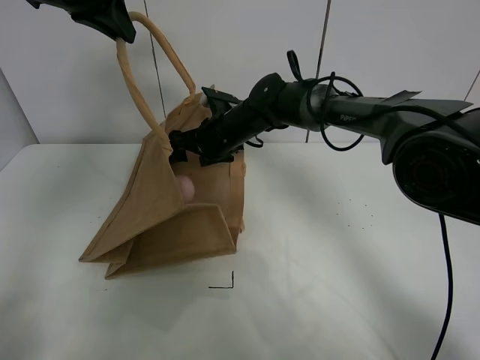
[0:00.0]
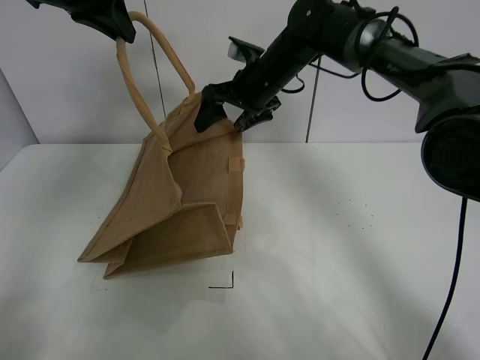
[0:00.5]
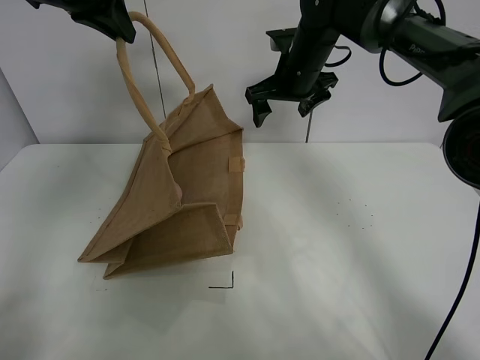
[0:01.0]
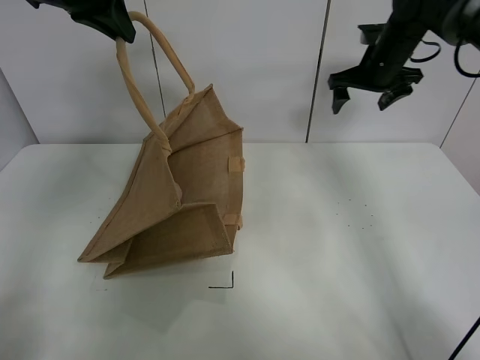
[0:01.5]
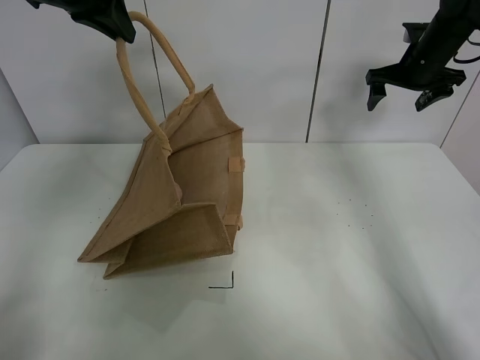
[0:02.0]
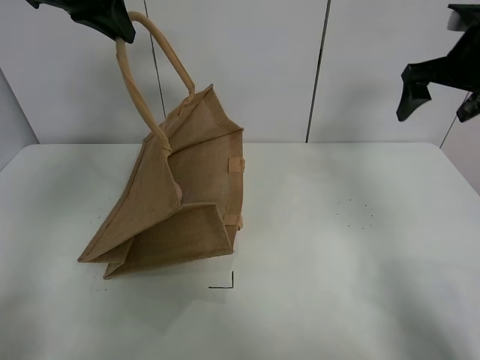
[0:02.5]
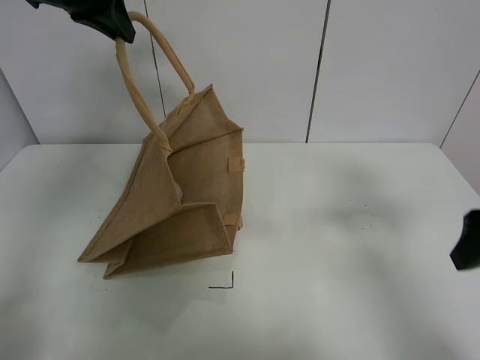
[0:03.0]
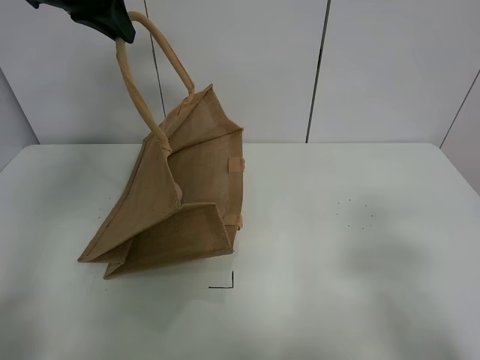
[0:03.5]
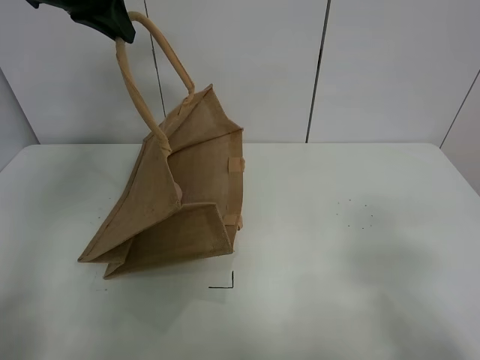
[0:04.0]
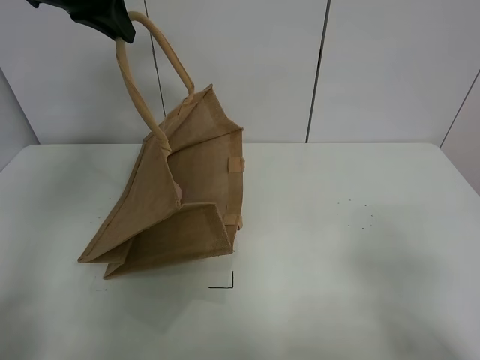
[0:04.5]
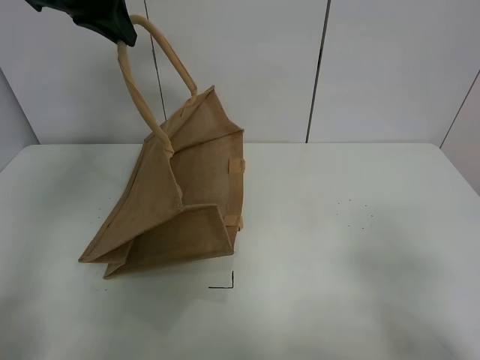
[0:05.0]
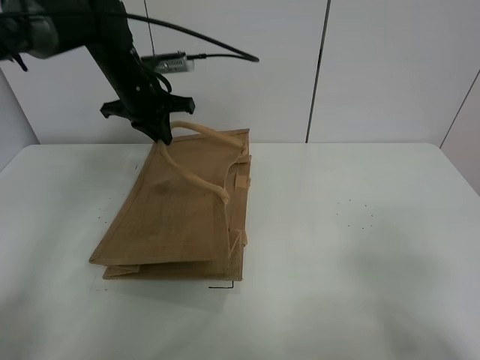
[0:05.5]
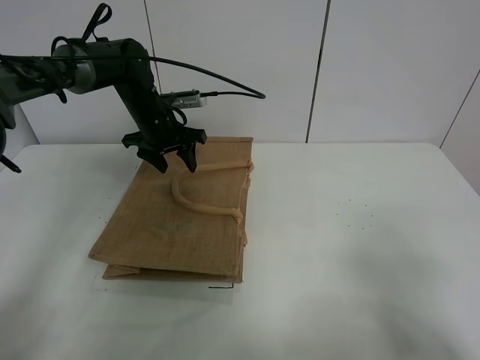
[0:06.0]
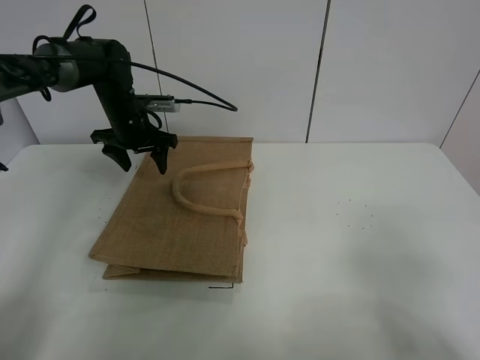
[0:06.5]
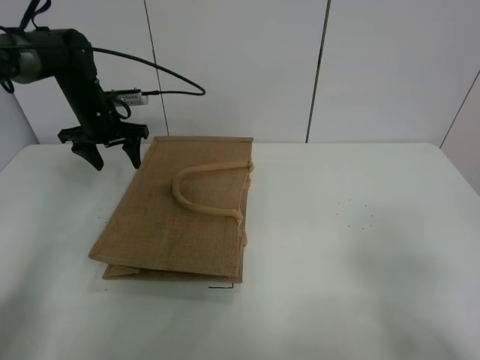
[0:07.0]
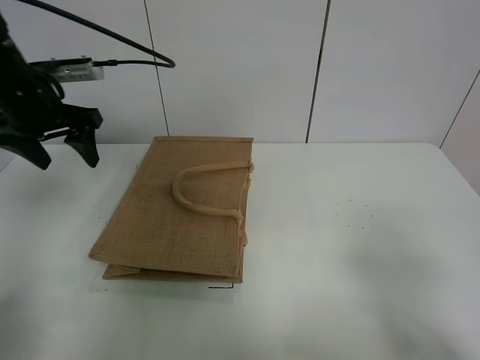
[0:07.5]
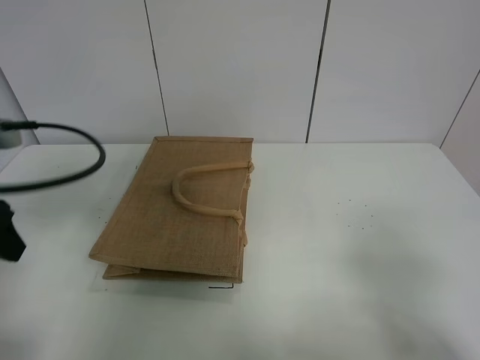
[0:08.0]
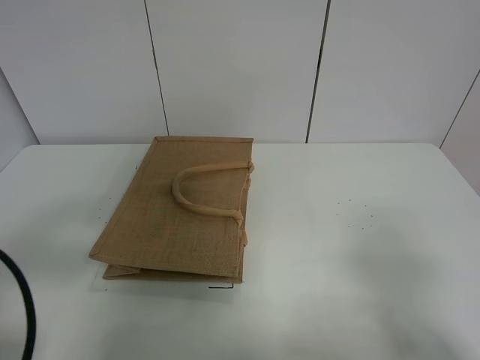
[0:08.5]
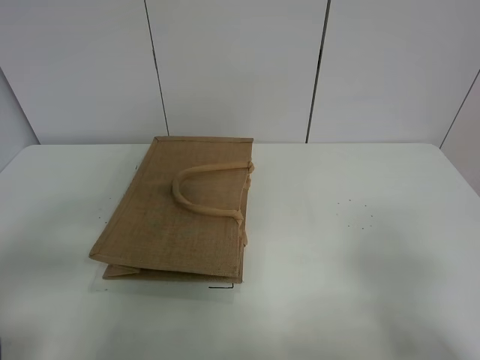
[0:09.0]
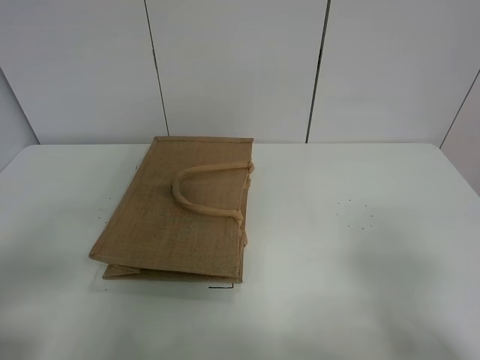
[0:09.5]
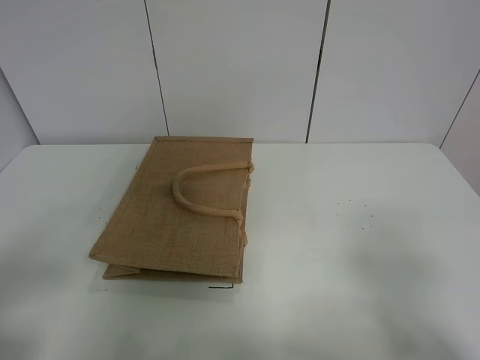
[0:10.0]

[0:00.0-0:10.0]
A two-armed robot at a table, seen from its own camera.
Task of the whole recording: open the brown linen bag and put the peach in the bag.
Step, 0:01.0 to 0:06.5: Put down the handbag with left grippe.
0:00.0 to 0:02.0: The right gripper travels to the right by approximately 30 cm.
0:02.0 to 0:04.0: The right gripper heads backward, covering approximately 50 cm.
0:04.0 to 0:06.0: The left gripper heads downward, covering some 25 cm, and opens.
0:06.0 to 0:08.0: The left gripper heads backward and to the left, covering roughly 35 cm.
0:08.0 to 0:10.0: The left gripper is displaced backward by about 15 cm.
